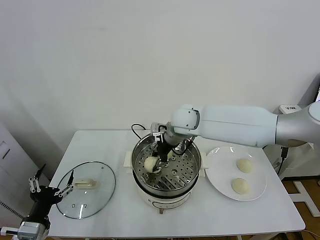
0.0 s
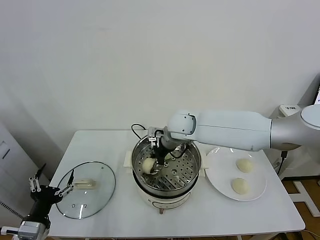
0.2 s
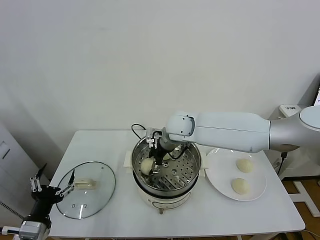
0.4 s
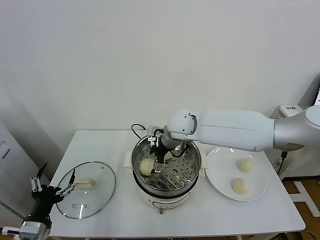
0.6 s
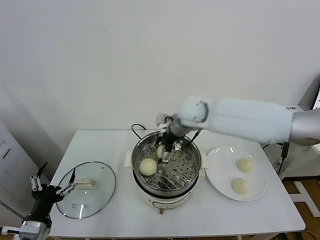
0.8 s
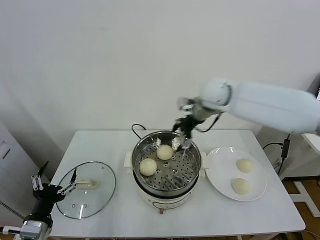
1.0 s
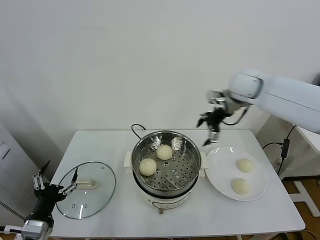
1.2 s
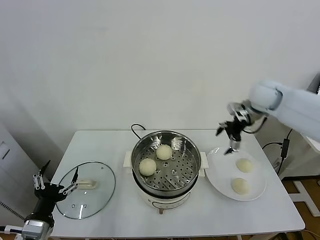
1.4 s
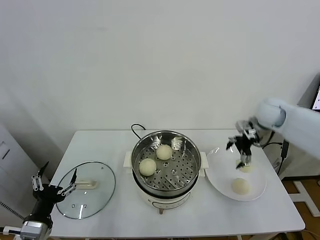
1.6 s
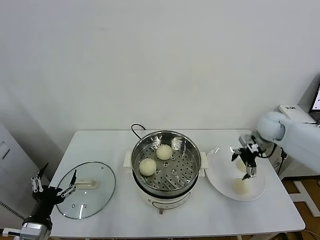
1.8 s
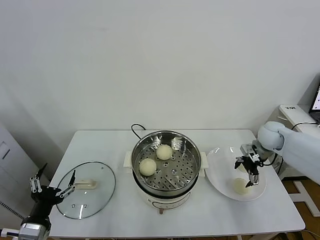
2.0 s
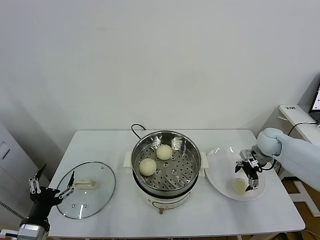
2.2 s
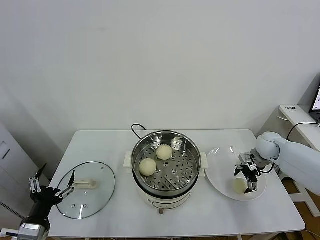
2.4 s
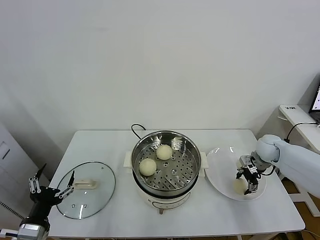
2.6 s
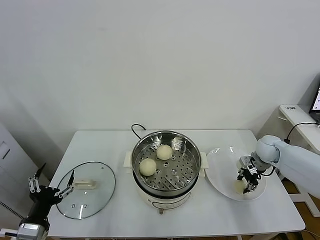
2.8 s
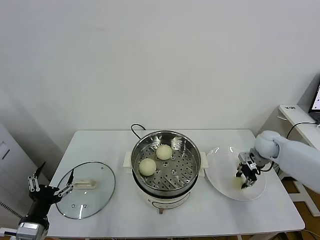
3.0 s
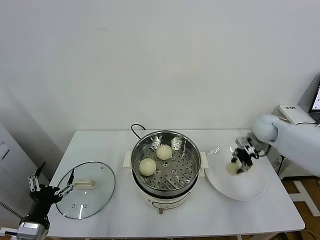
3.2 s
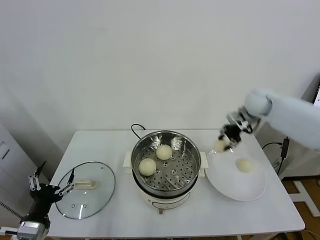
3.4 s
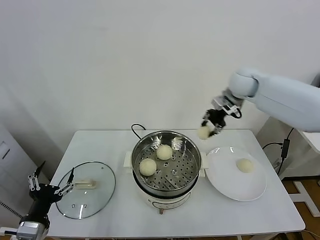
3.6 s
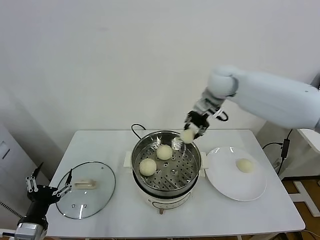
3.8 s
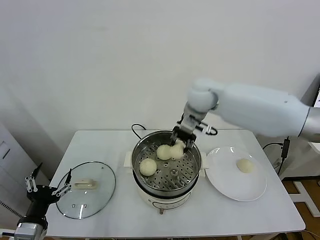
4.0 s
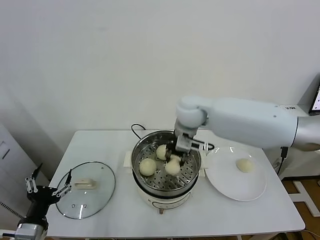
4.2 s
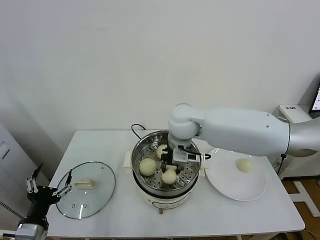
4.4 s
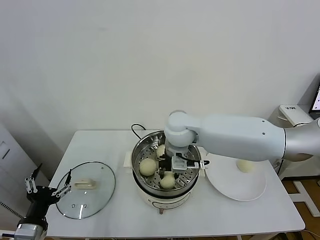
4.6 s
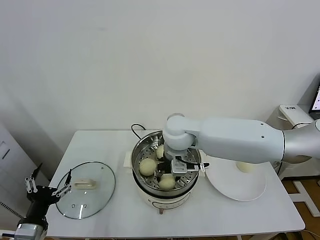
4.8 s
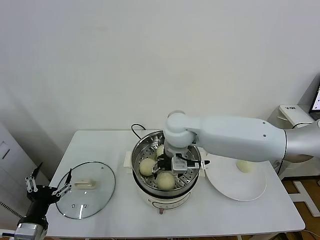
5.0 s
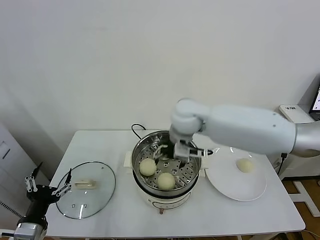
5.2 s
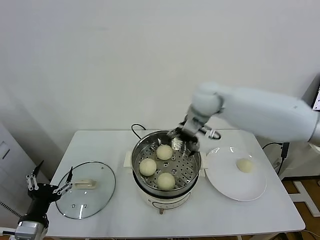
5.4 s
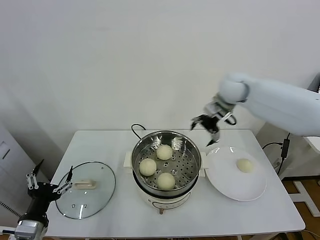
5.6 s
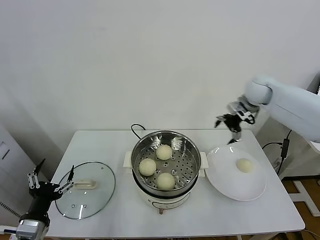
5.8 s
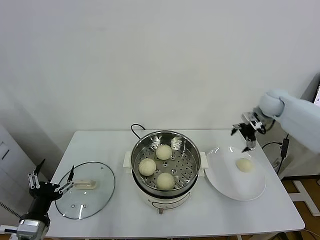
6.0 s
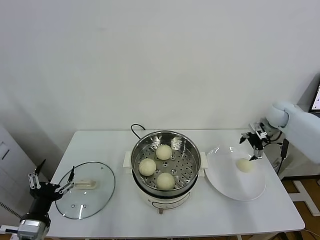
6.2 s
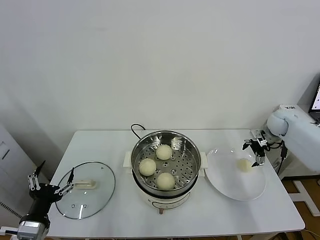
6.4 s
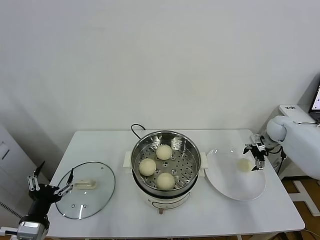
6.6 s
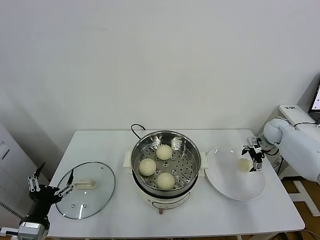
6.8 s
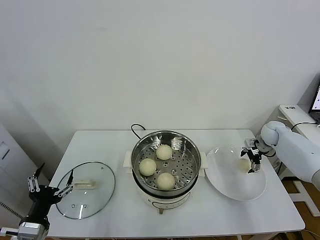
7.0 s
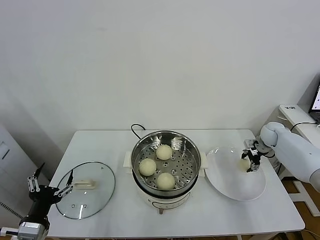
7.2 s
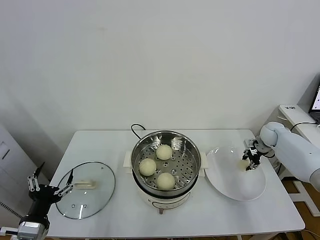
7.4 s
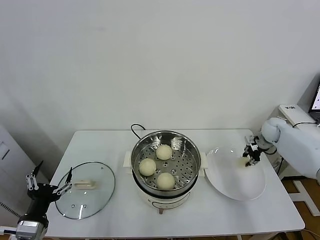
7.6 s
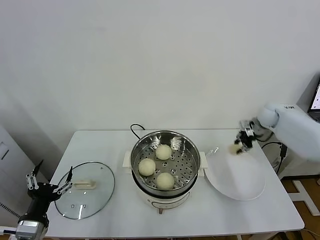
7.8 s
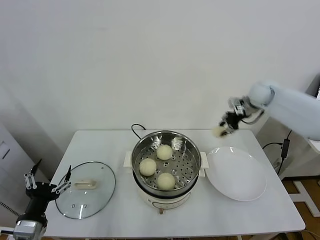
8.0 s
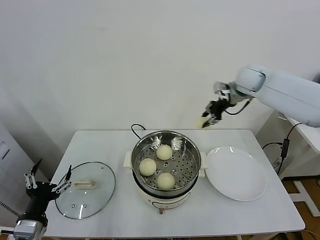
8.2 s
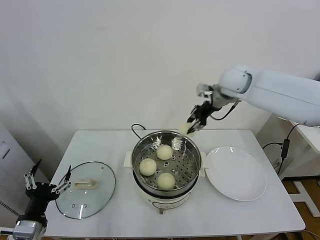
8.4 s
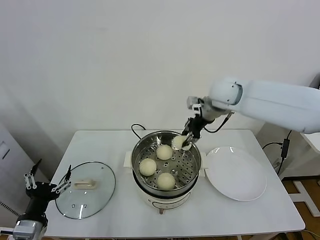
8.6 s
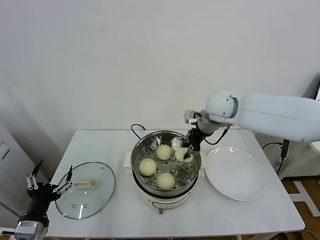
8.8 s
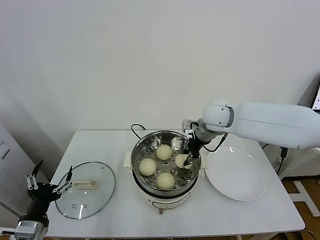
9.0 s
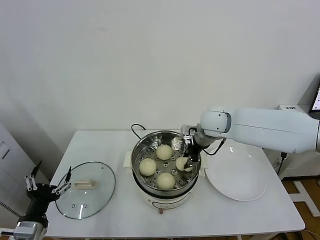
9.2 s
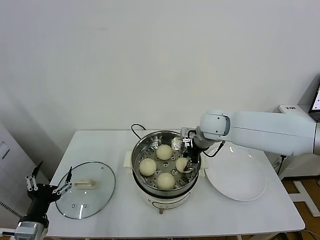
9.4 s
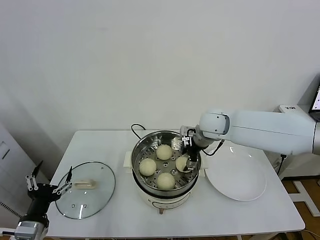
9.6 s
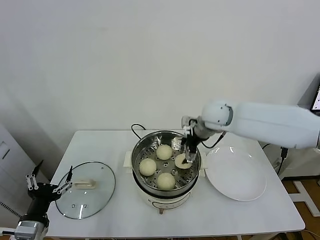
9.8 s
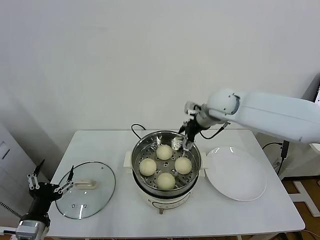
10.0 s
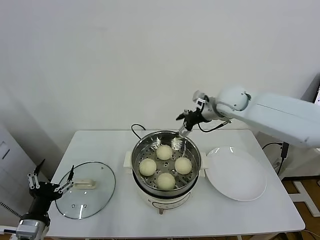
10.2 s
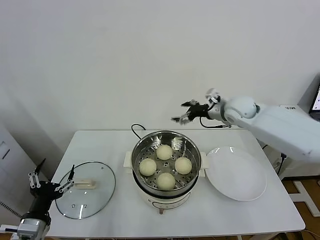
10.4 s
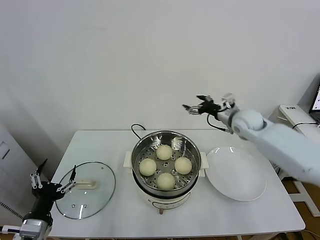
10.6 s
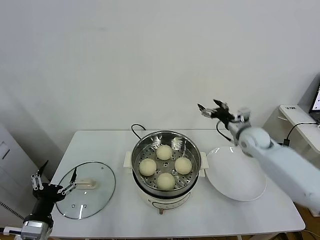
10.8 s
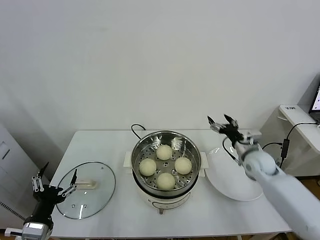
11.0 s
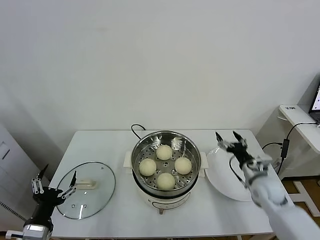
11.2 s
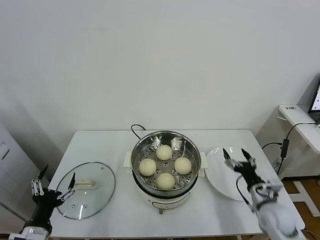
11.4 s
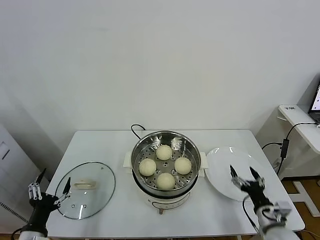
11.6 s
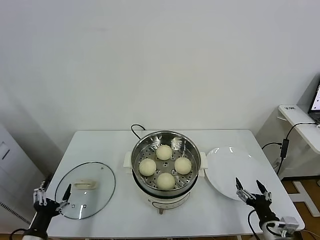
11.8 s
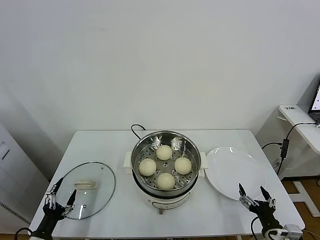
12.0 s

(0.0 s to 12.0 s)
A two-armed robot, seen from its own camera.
Task of the whole recording: take steamed baozi put them in steamer.
Step, 0.8 s - 2.6 s: Grasp the baozi in the plate with right gripper.
Step, 2.8 s - 5.0 s: Place the baozi on the steamer with right gripper.
Step, 5.2 s - 7.2 s: Grasp the baozi in the plate with right gripper.
Step, 7.4 s - 9.8 s: Place the baozi on the steamer with right gripper.
0.0 s - 1.6 s: The right gripper goes some 30 cm to the right, and opens up.
1.6 s - 3.0 s: The right gripper goes roughly 10 cm downward, and closes its fingers.
3.0 s - 4.4 s: The right gripper moves to the left and upward, about 35 cm.
4.4 s - 6.0 s: The right gripper heads to the right, covering some 35 cm, and opens its fingers.
6.0 s - 7.6 s: The right gripper is displaced downward by roughly 10 cm, and closes its fingers.
7.6 s - 9.0 s: The right gripper shifts some 30 cm to the left and upward.
9.0 s - 10.4 s: The right gripper is displaced to the right by roughly 10 cm, and opens its fingers.
10.4 s - 12.0 s: The left gripper travels downward and to the left by some 15 cm. The right gripper travels backward and downward by about 50 cm.

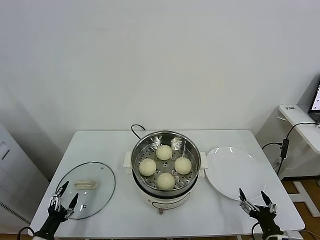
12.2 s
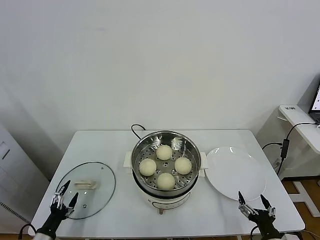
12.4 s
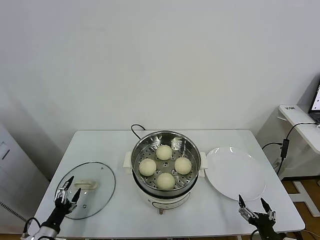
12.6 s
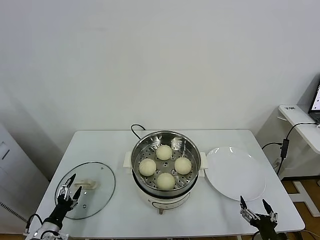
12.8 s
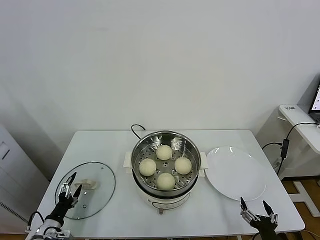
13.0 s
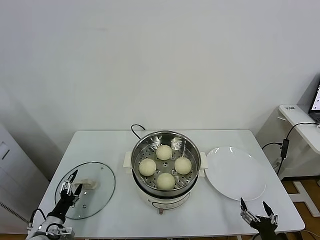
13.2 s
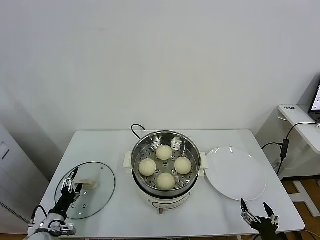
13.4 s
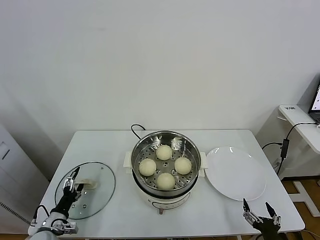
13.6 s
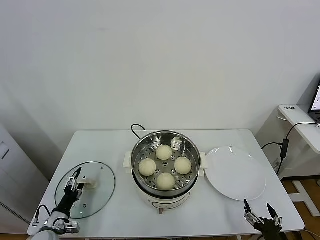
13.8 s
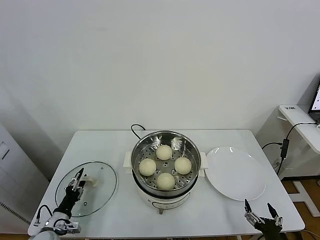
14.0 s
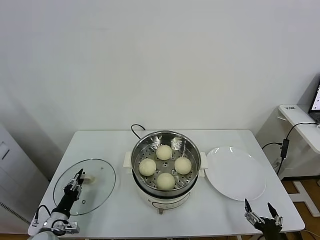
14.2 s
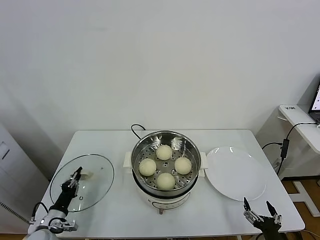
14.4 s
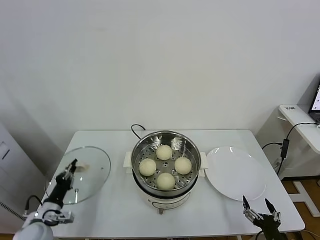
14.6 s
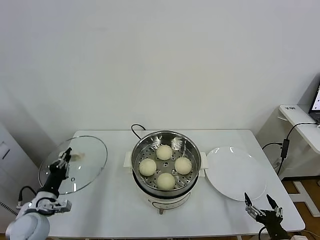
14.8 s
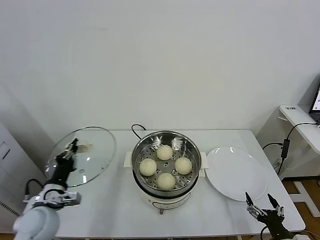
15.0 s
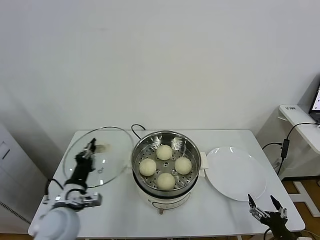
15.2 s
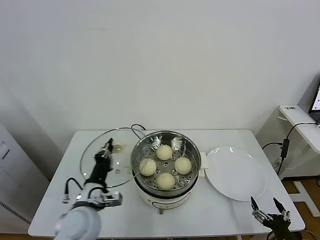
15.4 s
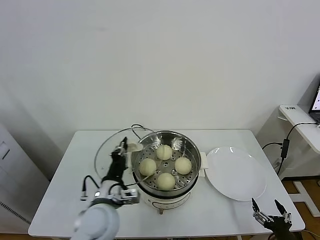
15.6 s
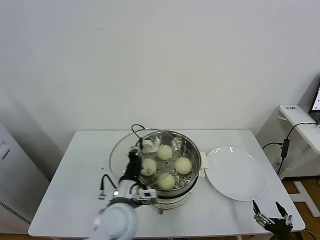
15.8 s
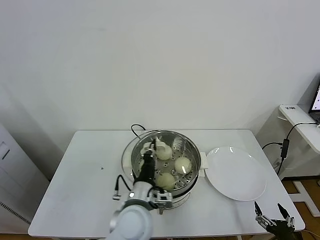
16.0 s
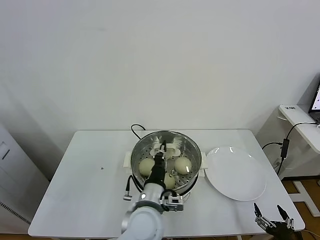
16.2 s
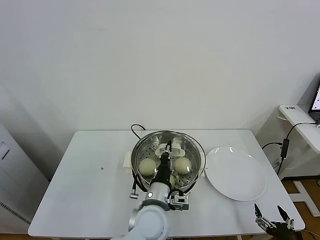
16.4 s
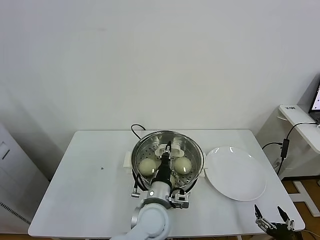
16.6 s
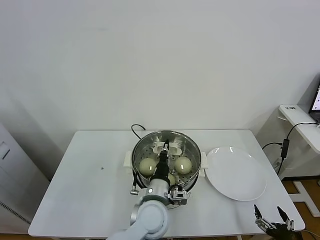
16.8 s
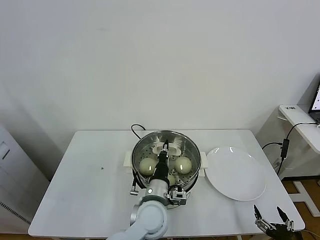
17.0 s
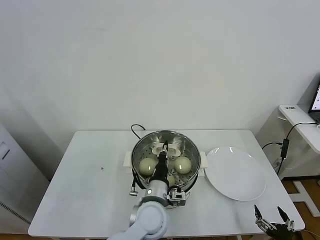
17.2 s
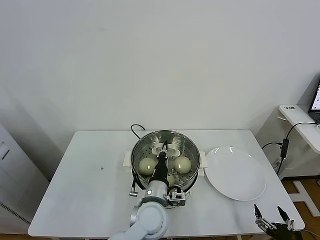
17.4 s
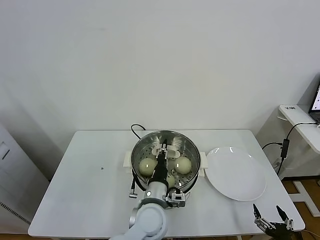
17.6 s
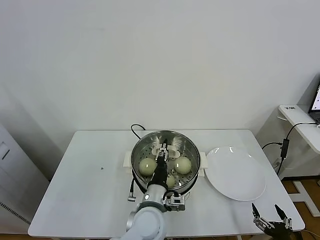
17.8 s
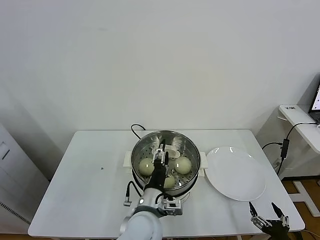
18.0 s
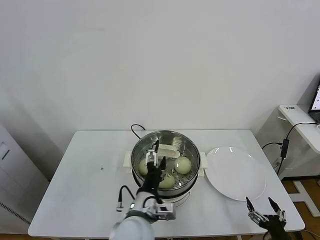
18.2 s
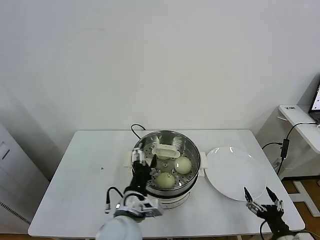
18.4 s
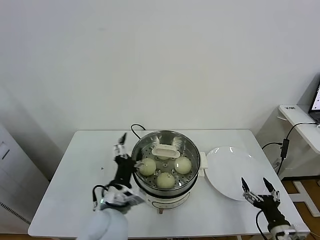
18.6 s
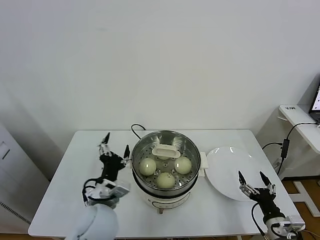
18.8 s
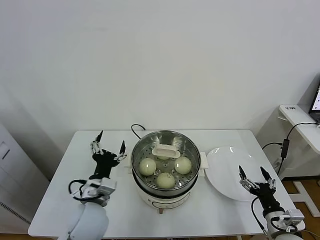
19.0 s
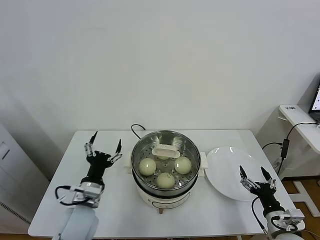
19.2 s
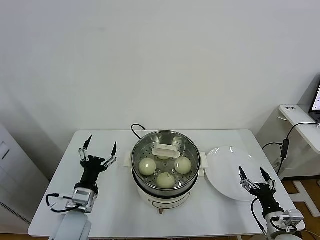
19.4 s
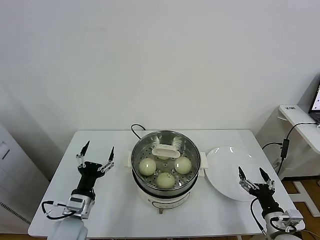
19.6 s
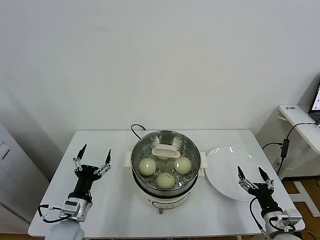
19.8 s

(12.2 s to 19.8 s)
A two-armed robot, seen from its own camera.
Task of the whole recording: take steamed baozi put them in steamer.
Step, 12.2 s - 14.4 s: Grasp the pot lid with left gripper.
Step, 14.6 s - 18.2 s: Place the pot lid on the steamer with left gripper.
12.2 s - 13.8 s: The left gripper heads forward, covering roughly 10 cm.
13.8 s - 15.2 s: The left gripper heads upward and to the right, covering approximately 20 cm, and closes up.
15.2 s - 16.8 s: The left gripper travels to the right by about 25 cm.
16.8 s - 18.2 s: The left gripper shifts by approximately 5 cm, and opens.
18.2 s - 19.8 s: The right gripper is displaced forward by roughly 10 cm. The left gripper heads to the left, covering approximately 20 cm.
